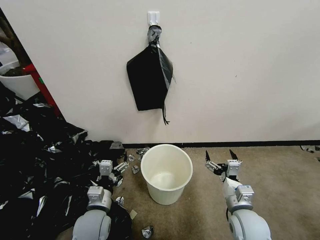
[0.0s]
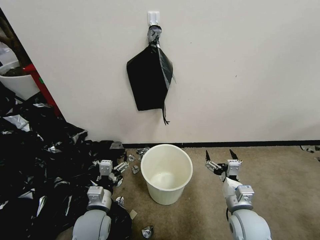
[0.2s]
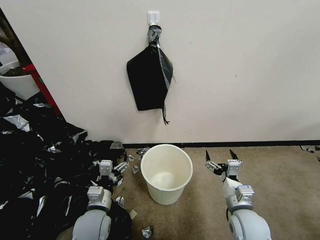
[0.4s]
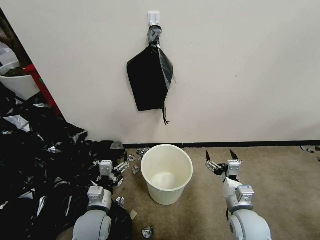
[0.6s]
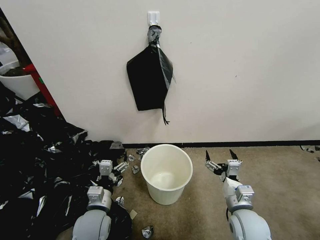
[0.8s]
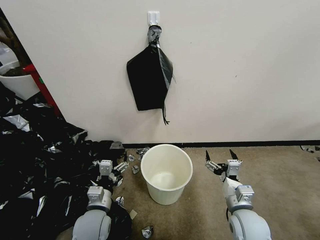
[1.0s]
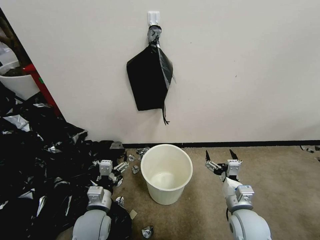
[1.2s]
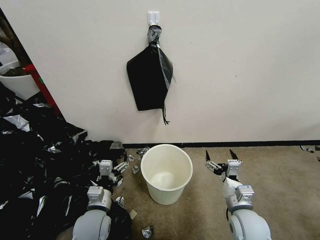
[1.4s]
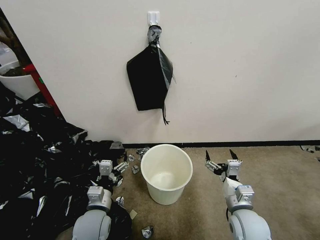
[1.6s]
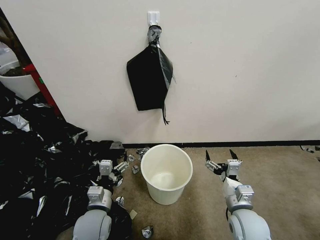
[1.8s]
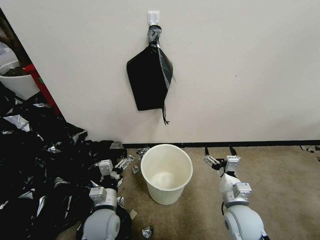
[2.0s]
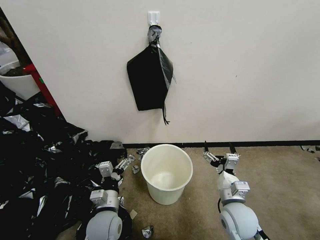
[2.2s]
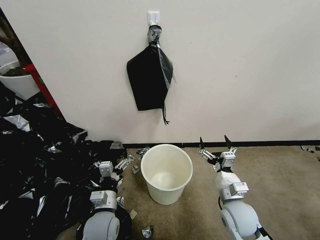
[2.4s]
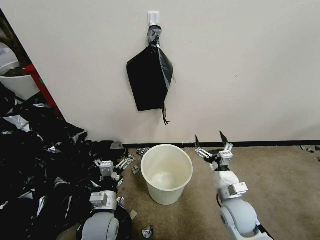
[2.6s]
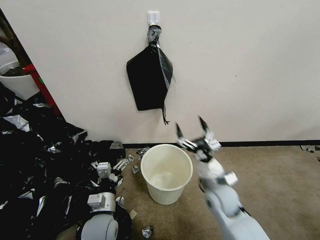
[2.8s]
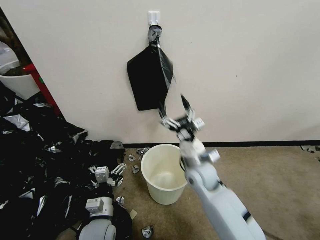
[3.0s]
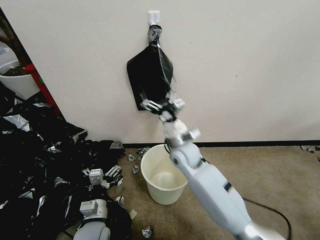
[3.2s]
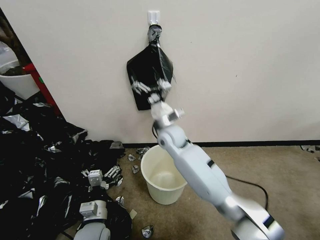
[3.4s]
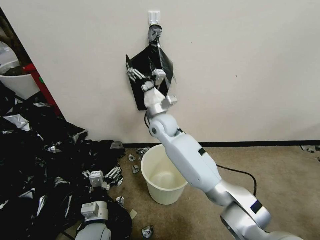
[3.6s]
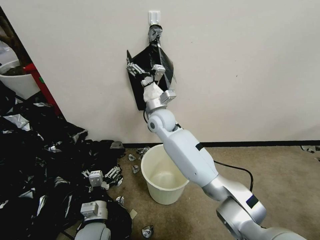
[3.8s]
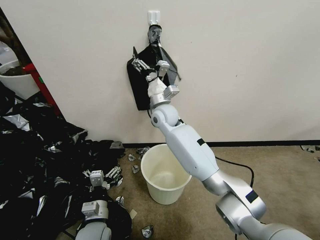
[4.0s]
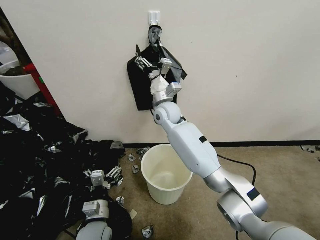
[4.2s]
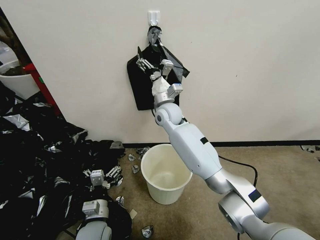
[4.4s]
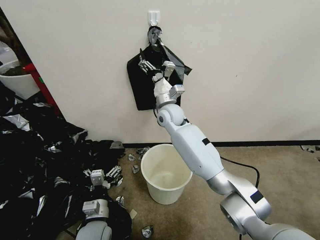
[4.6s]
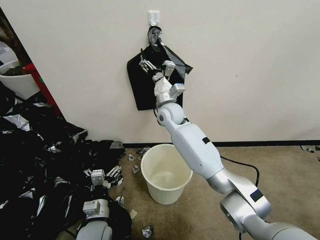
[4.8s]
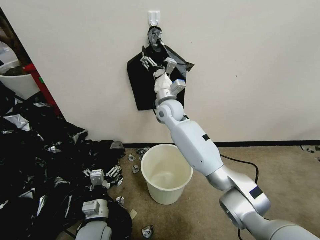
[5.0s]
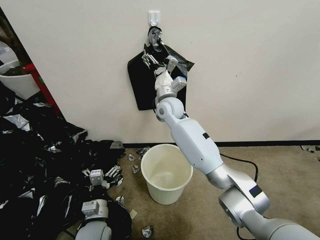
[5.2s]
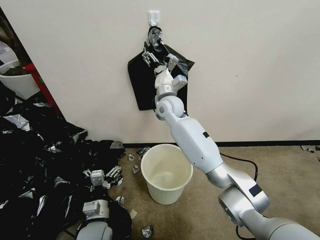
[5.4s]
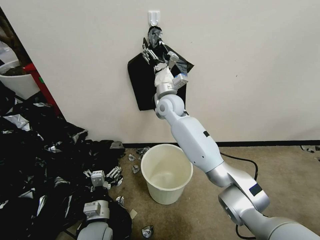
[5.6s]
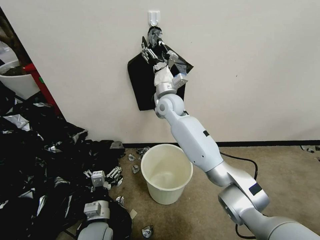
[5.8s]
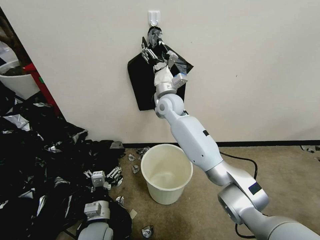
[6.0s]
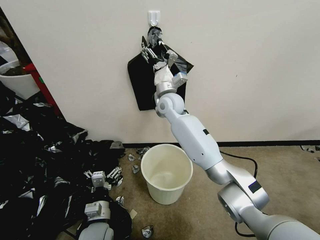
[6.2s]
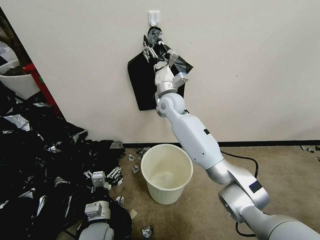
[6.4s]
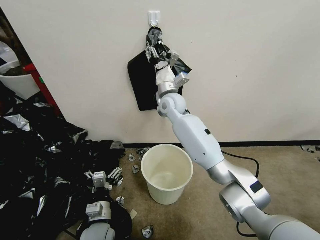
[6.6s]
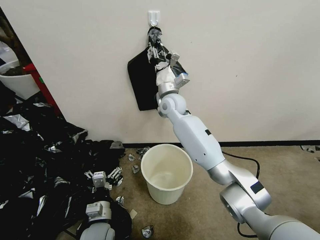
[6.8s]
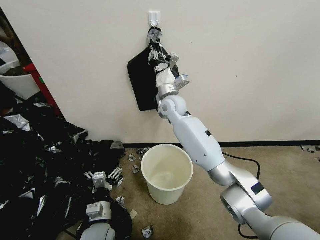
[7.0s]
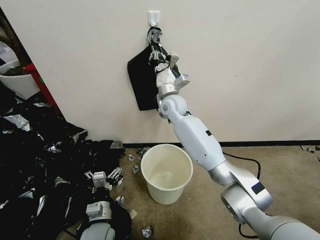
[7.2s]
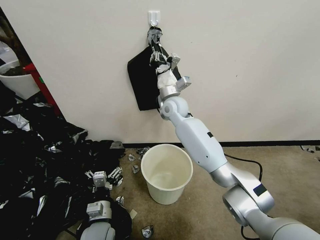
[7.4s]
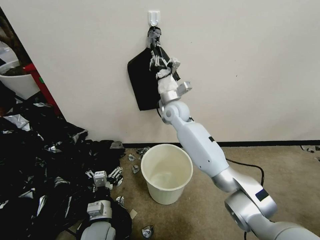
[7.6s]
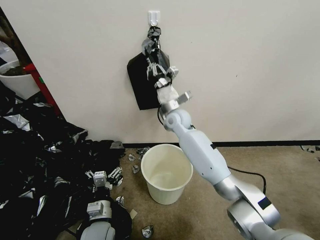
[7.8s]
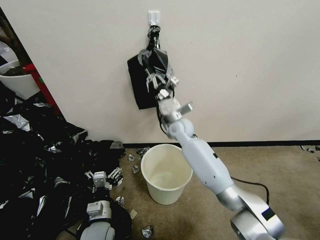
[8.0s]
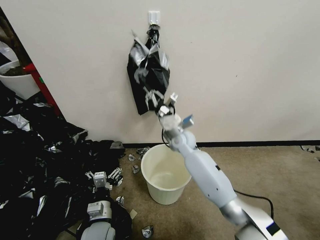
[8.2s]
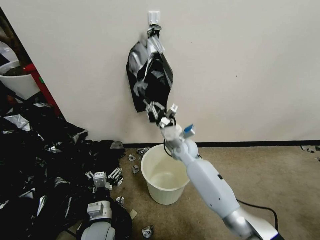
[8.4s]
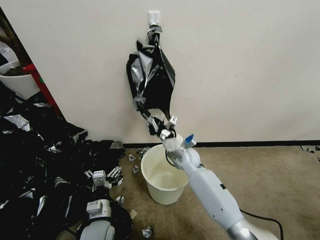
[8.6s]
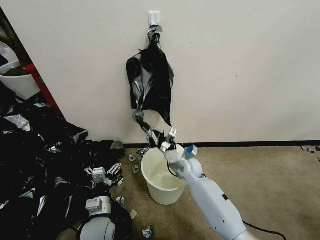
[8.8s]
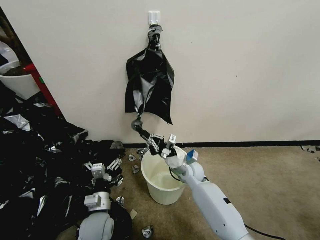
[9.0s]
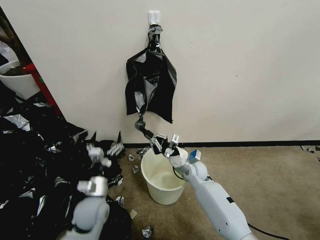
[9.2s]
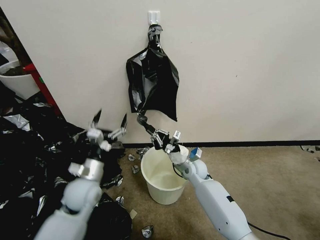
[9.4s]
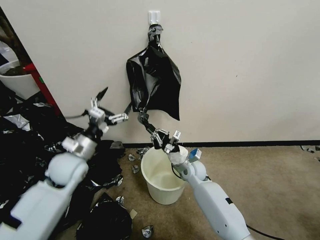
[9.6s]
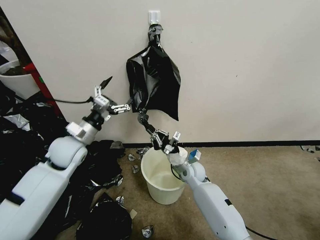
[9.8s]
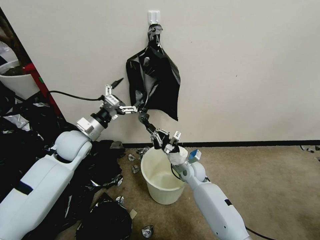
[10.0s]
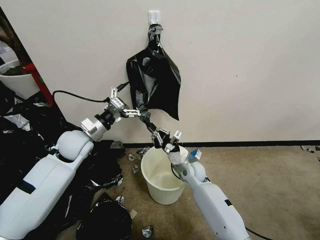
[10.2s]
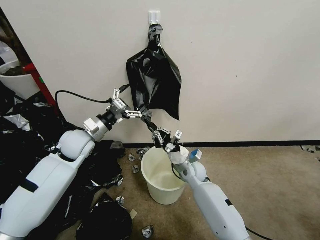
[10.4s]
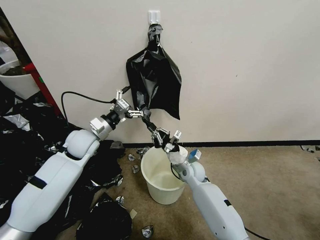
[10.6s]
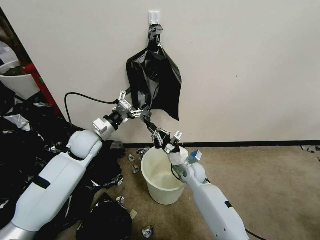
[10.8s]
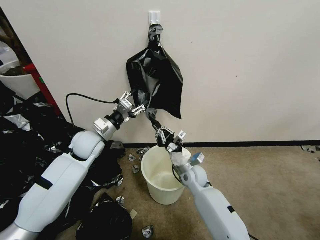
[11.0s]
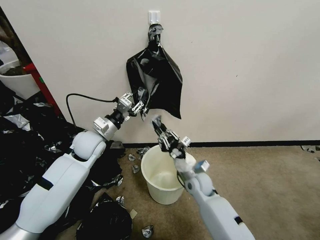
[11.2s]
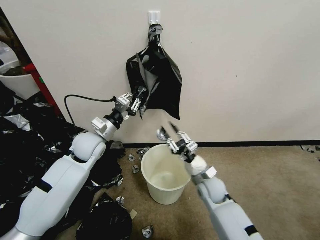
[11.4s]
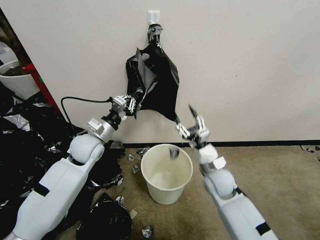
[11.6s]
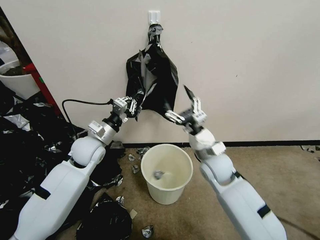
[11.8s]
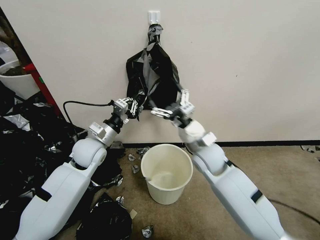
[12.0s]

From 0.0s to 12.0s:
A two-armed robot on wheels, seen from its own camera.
Task of the whole recording: Place a trash bag onto the trash bin.
From 1.6s to 3.0s: The right gripper is displaced forward, to the left and upward by roughly 20 cm.
From 3.0s to 4.4s: The right gripper heads forward, upward and to the left, covering some 20 cm.
From 4.4s to 6.0s: The grippers move only a little.
From 6.0s to 7.6s: The right gripper closes.
From 7.6s to 9.0s: The right gripper shifts some 25 cm downward and backward.
From 9.0s to 10.4s: The left gripper is displaced forward and upward by roughly 25 cm.
From 10.4s to 12.0s: The left gripper closes. The right gripper goes roughly 15 cm upward, and opens its fingers.

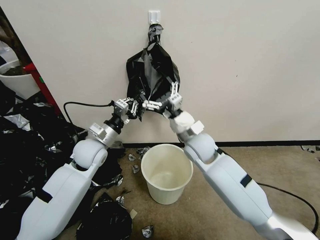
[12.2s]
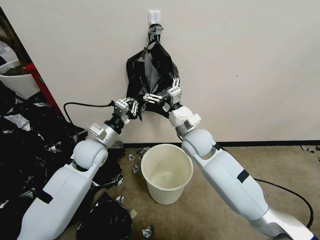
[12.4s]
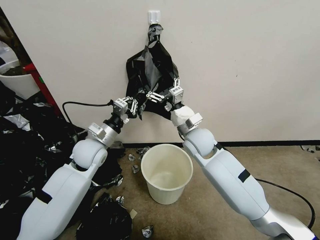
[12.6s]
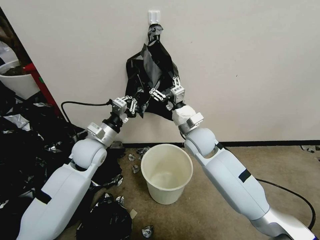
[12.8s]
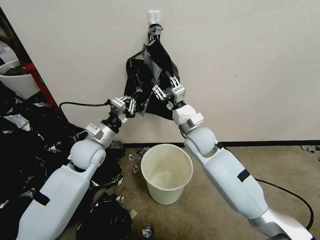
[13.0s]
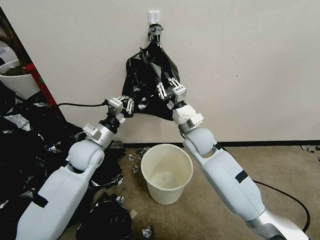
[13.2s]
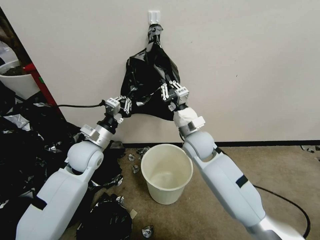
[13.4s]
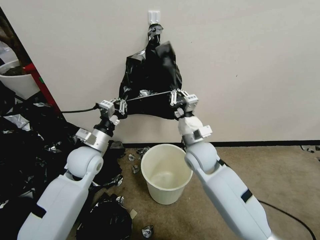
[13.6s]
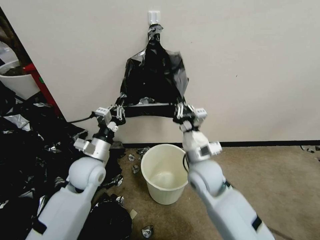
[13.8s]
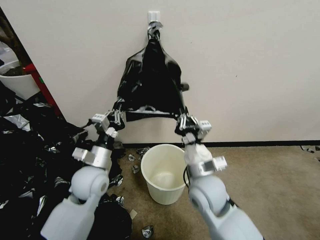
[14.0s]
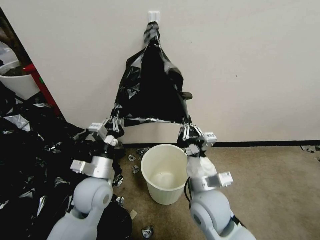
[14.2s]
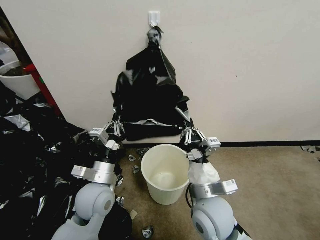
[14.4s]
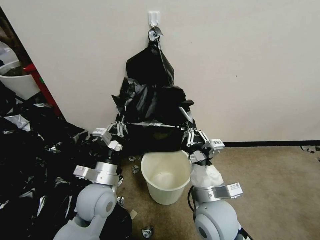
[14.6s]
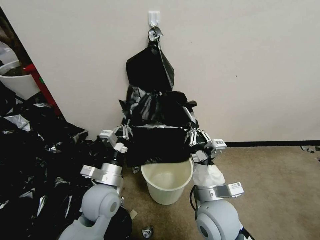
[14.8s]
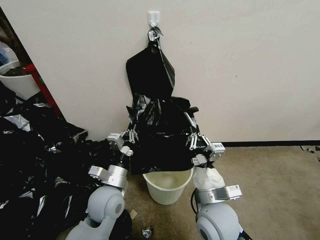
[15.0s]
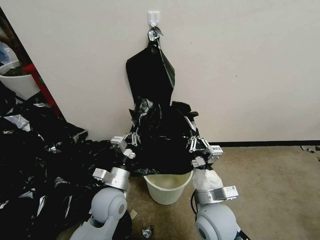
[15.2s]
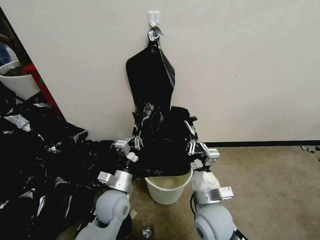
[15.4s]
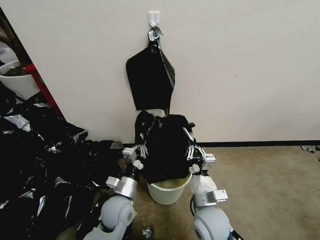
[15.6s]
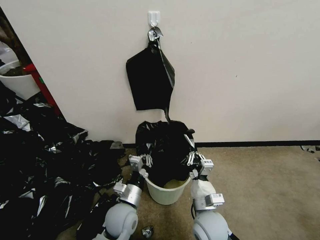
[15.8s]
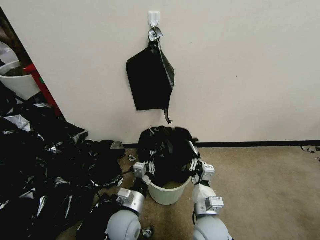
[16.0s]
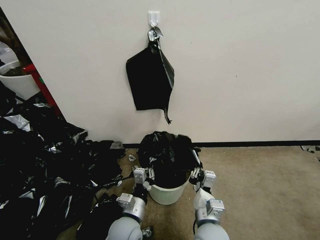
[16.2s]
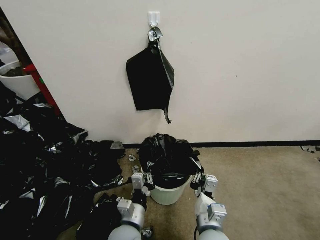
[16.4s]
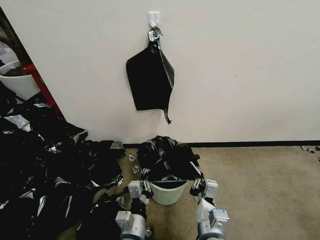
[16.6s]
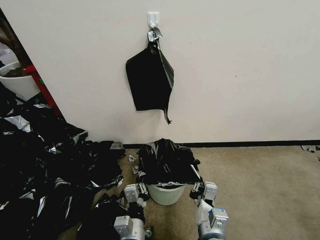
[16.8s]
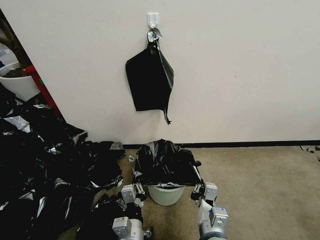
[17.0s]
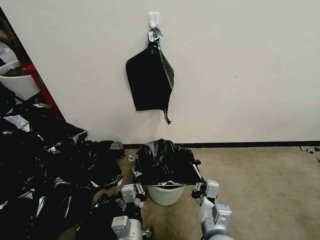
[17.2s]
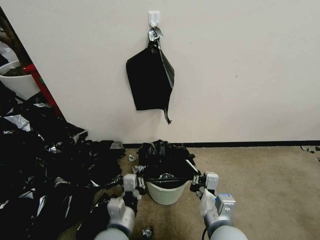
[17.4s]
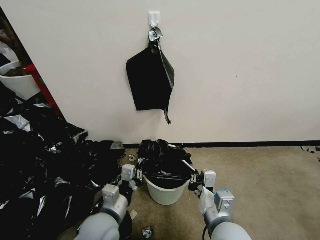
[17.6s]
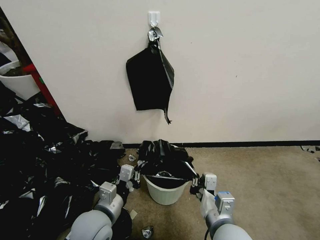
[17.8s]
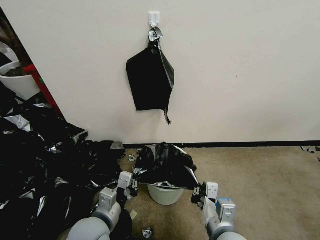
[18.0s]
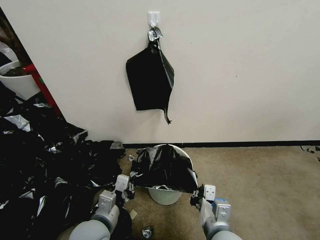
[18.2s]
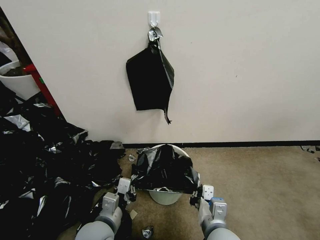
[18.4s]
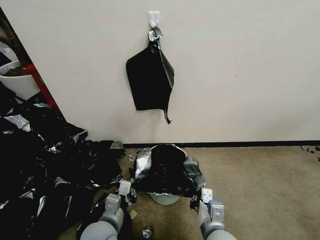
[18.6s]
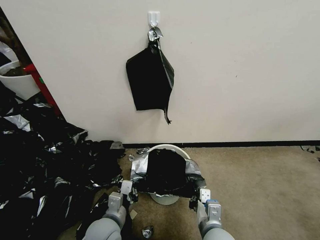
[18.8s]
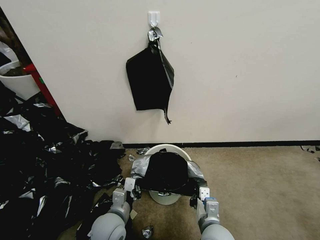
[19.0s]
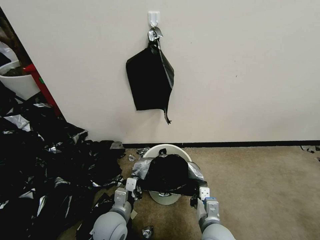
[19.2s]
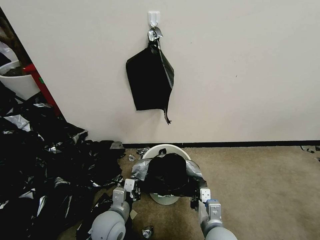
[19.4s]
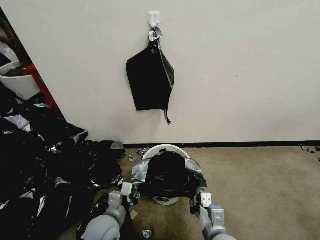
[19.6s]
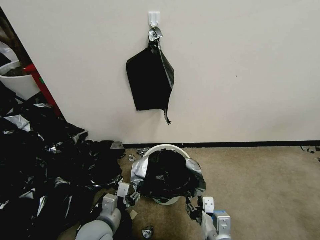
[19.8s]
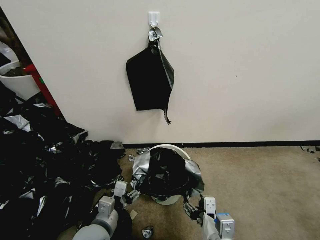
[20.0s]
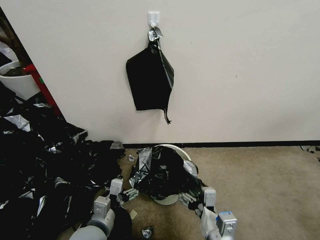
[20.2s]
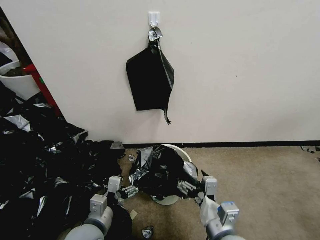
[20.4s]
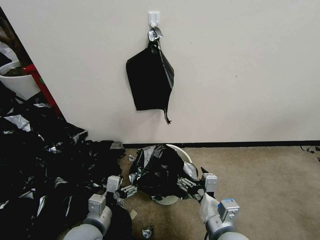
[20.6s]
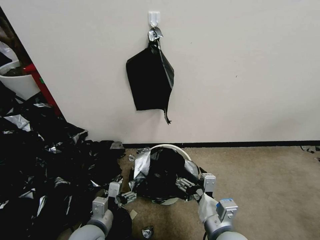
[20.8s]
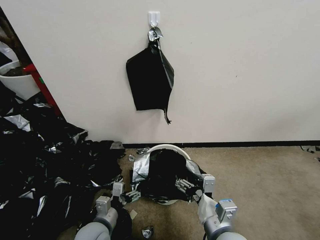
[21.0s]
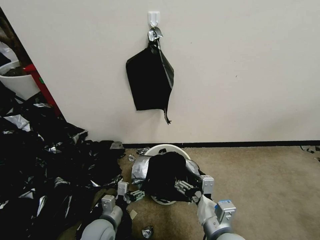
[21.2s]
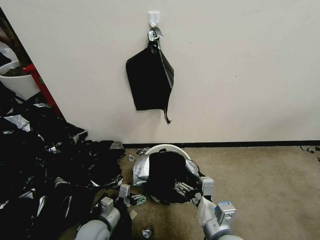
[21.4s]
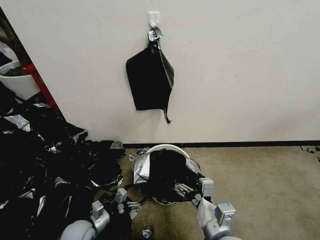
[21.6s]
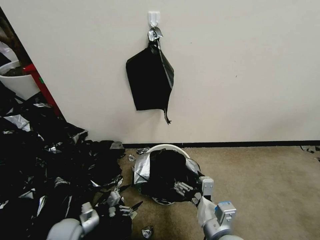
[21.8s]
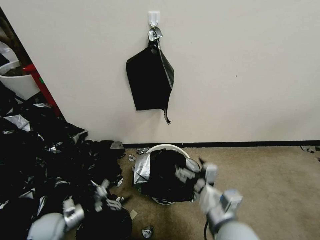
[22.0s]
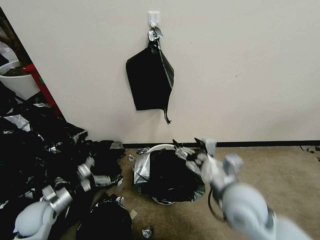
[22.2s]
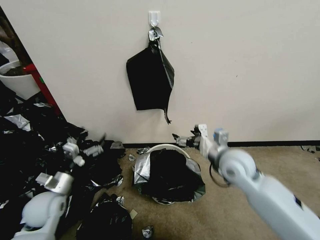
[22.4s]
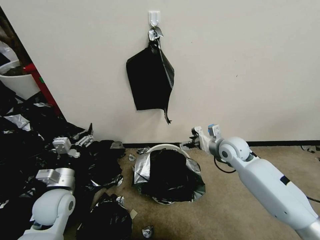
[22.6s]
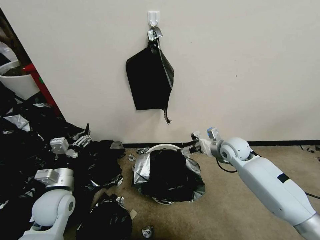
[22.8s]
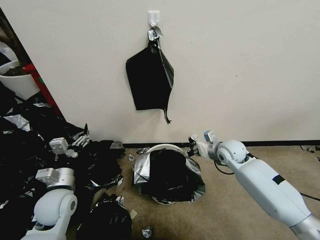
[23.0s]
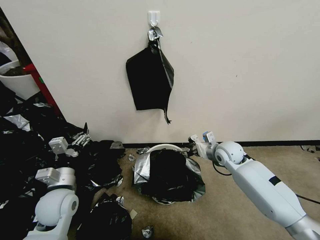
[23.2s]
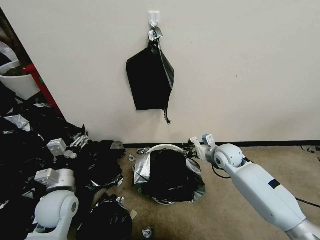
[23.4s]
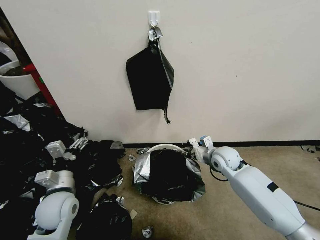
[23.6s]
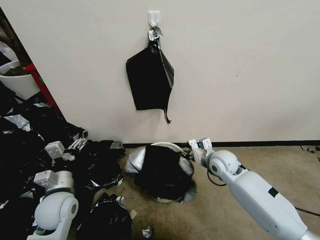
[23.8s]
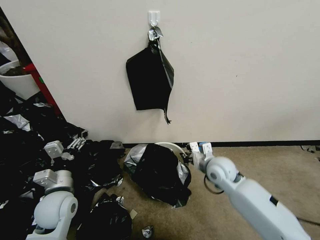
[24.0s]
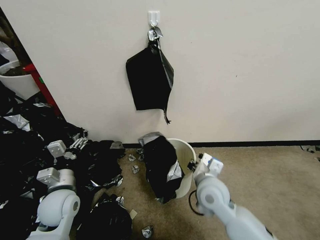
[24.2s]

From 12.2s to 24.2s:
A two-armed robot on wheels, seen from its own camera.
Task of the whole recording: Place a trash bag onto the trash bin.
From 12.2s to 13.8s: The grippers both shift backward by roughly 5 cm. The right gripper closes.
From 13.8s to 15.2s: The left gripper moves backward, to the right and downward, about 10 cm. The right gripper heads backward, covering approximately 10 cm.
From 15.2s to 16.6s: The right gripper travels backward by about 5 cm; the left gripper shifts approximately 15 cm backward and to the right.
From 16.6s to 18.2s: The left gripper is displaced to the left and upward by about 10 cm.
From 18.2s to 19.8s: The left gripper shifts some 5 cm downward, and opens up. Meanwhile the right gripper opens up.
From 19.8s to 21.2s: The left gripper travels downward by about 5 cm, and opens up. The right gripper opens up.
From 21.2s to 22.6s: The left gripper travels to the left, upward and forward by about 15 cm. The right gripper moves forward, approximately 30 cm.
From 22.6s to 24.2s: The right gripper travels backward and to the left by some 15 cm, and closes.
